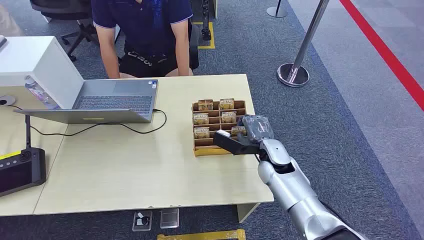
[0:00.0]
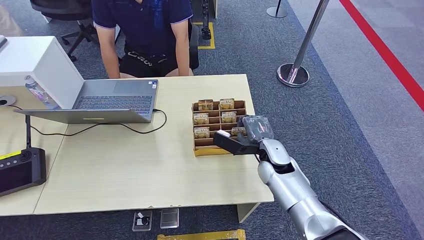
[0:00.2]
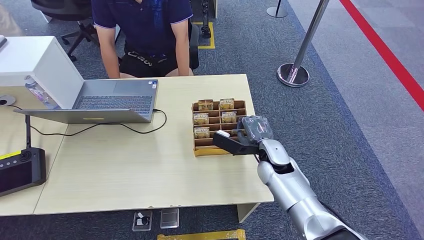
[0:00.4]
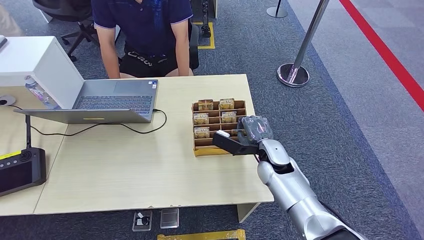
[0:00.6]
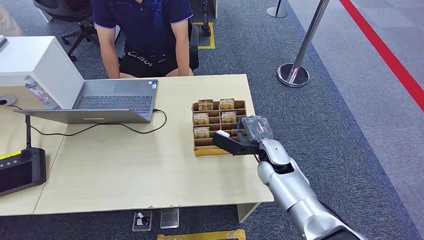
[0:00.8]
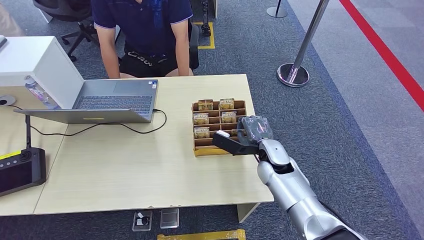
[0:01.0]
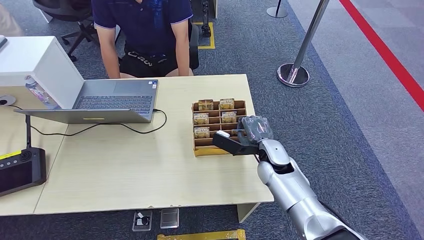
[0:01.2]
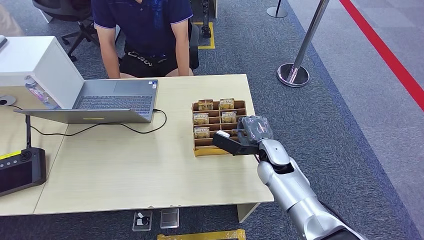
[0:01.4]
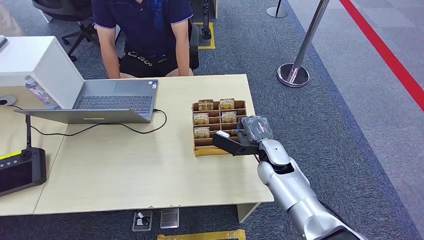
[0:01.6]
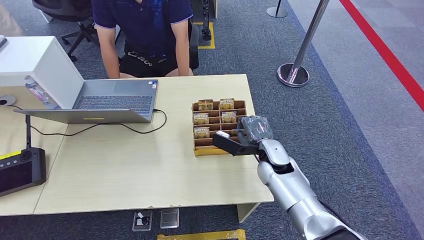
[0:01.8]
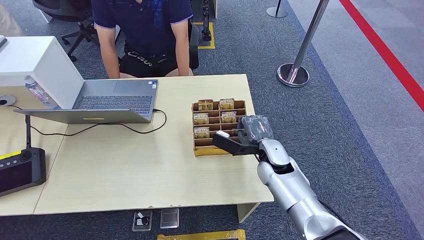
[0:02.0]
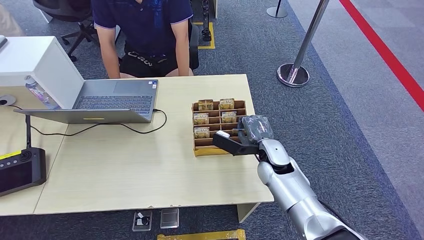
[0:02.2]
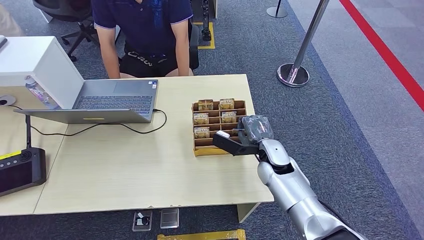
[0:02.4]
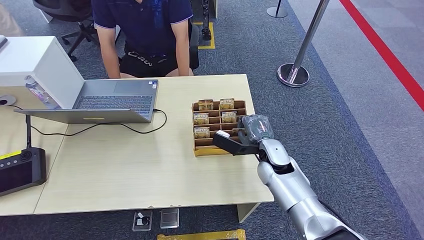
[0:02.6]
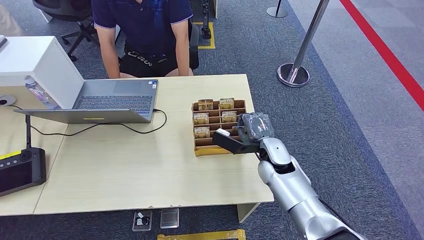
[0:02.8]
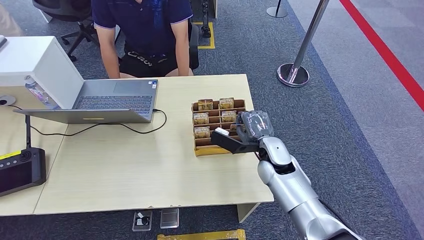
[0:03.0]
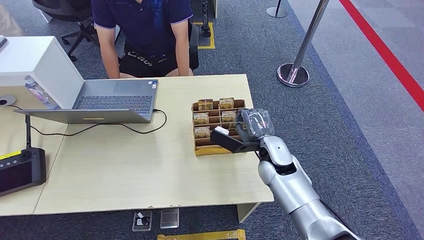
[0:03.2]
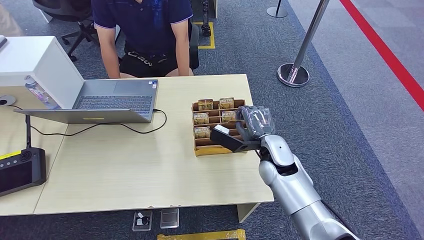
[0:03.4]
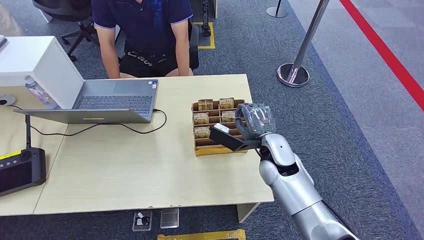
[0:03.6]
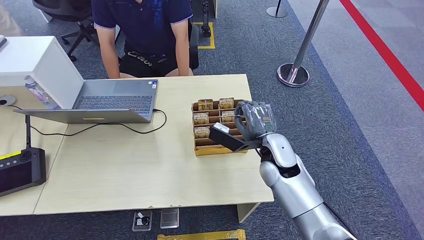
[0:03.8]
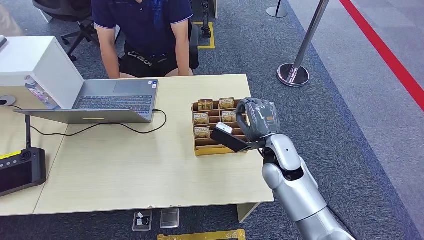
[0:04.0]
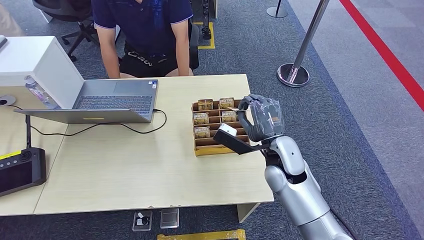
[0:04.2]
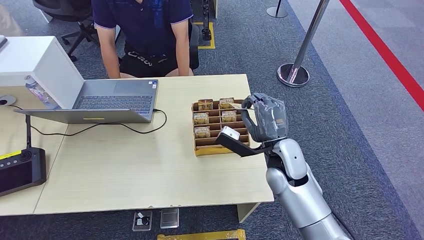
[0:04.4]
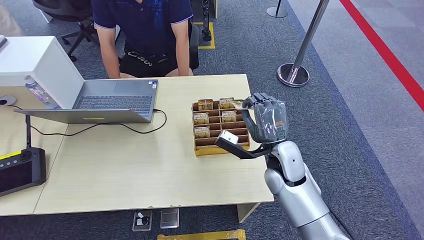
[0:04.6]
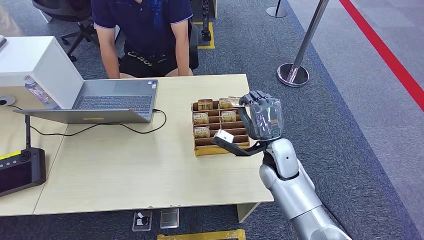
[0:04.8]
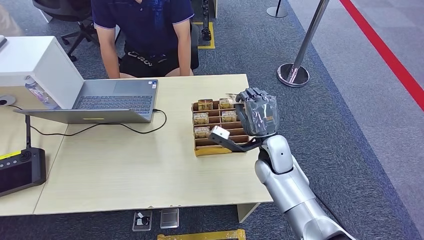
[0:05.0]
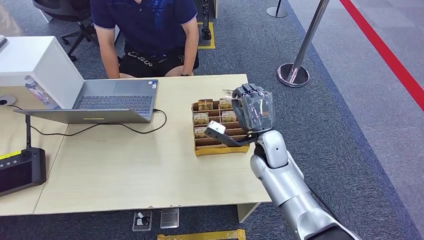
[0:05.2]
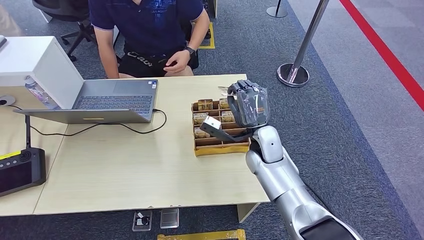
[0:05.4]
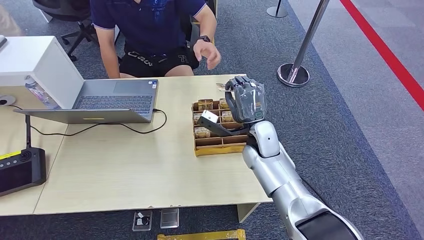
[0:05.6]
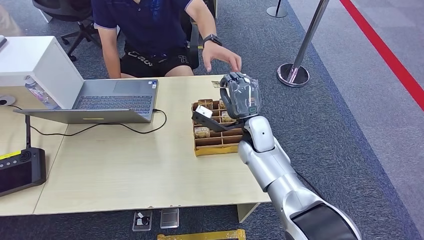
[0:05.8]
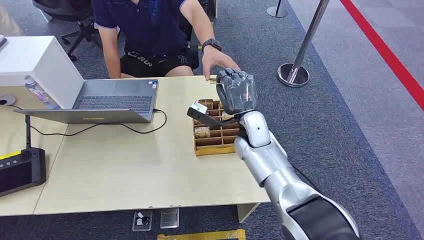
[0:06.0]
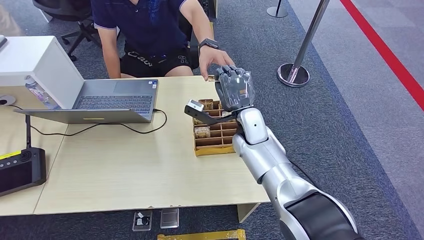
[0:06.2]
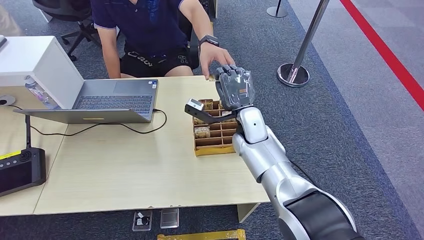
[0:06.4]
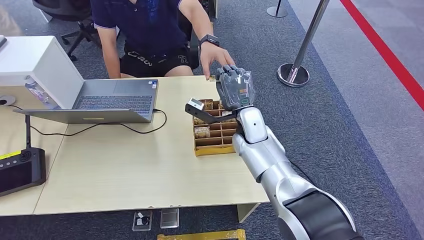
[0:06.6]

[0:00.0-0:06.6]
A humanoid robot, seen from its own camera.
Step, 0:00.0 to 0:04.2: Pick up the room card from the card holder.
Step, 0:05.0 to 0:06.4: Hand the room card to the target.
0:01.6 to 0:03.2: There are only small adjustments of the hands.
0:05.0 to 0:06.6: The right hand is displaced forward and to the left by about 10 cm.
